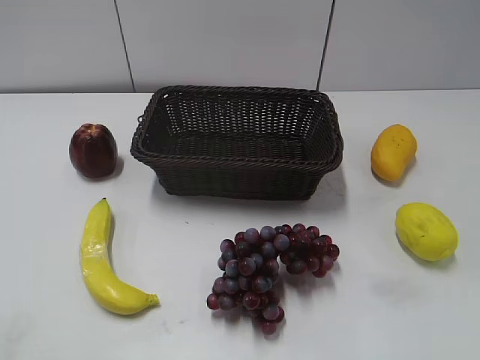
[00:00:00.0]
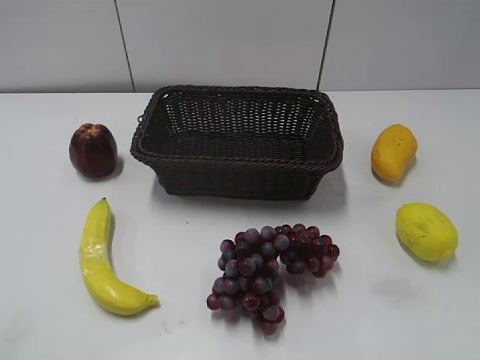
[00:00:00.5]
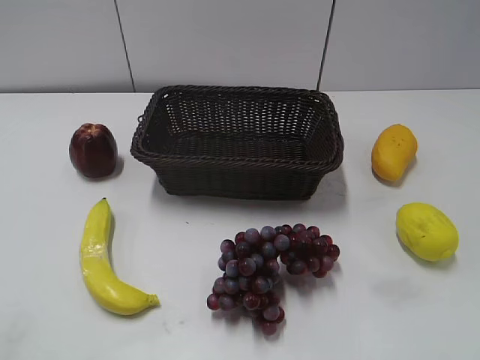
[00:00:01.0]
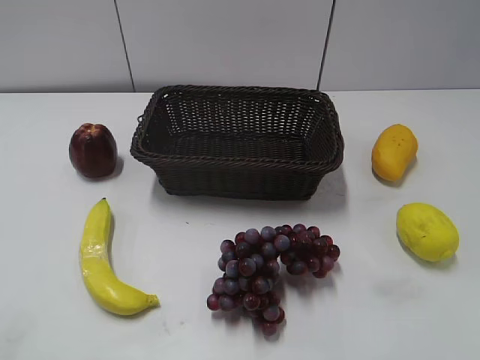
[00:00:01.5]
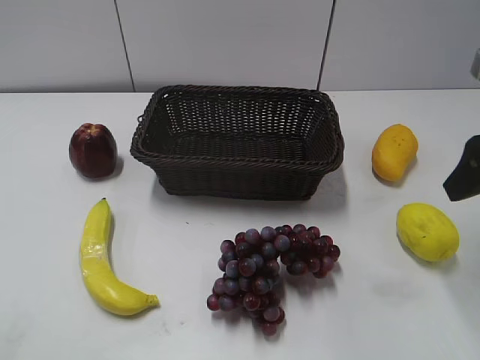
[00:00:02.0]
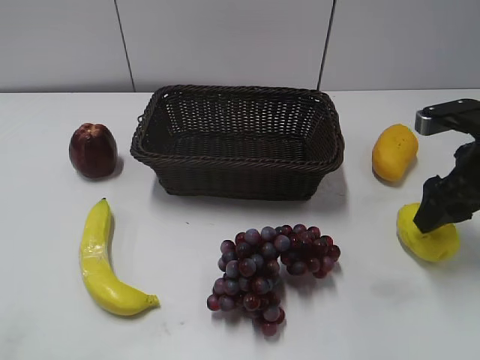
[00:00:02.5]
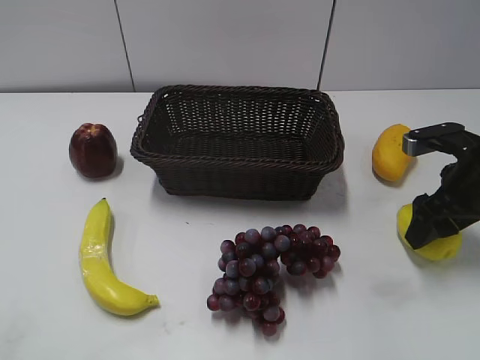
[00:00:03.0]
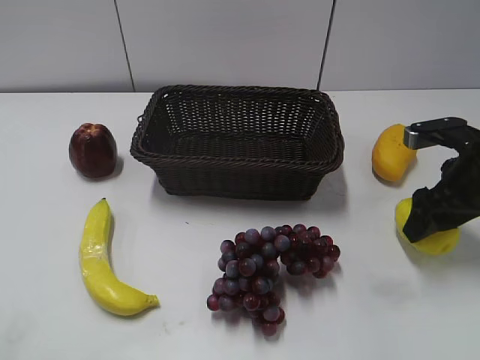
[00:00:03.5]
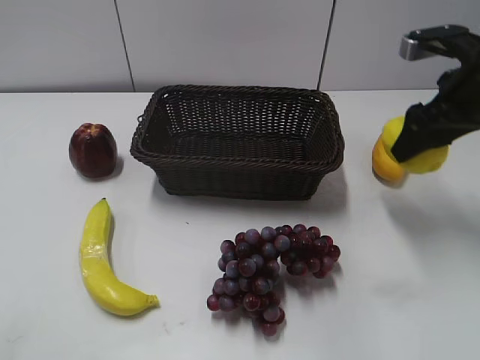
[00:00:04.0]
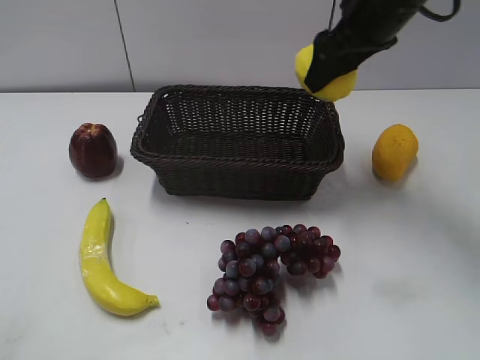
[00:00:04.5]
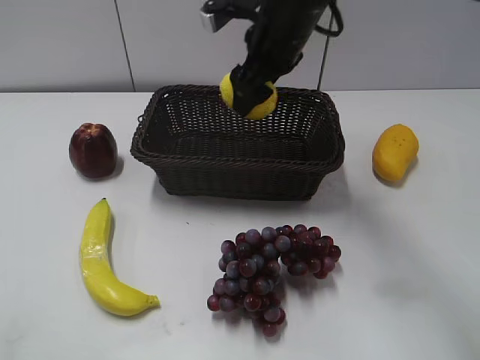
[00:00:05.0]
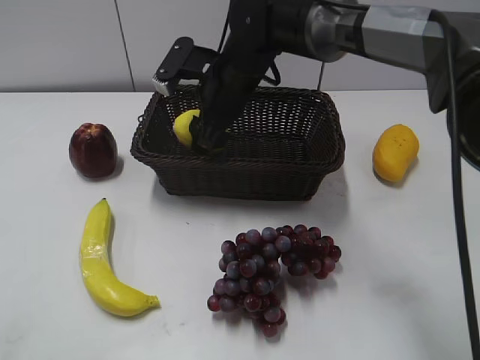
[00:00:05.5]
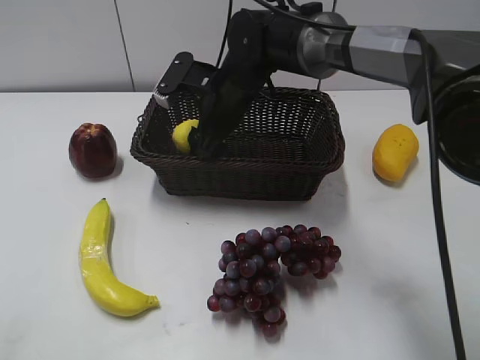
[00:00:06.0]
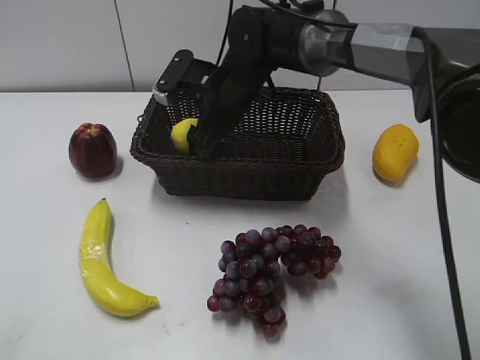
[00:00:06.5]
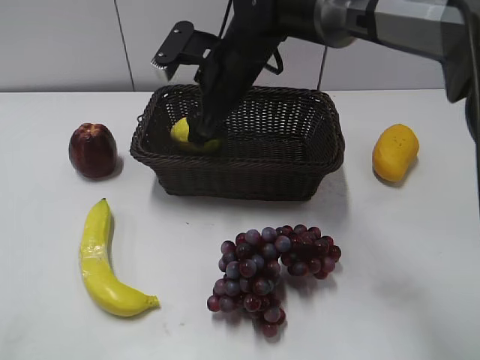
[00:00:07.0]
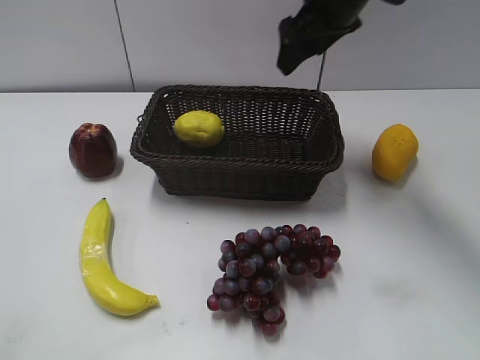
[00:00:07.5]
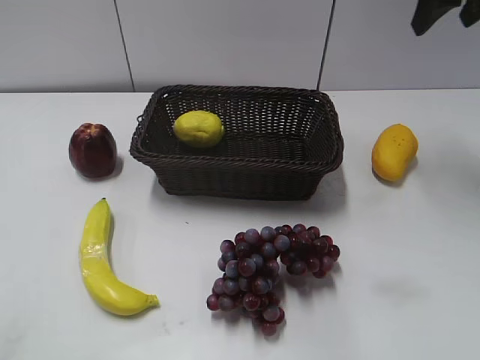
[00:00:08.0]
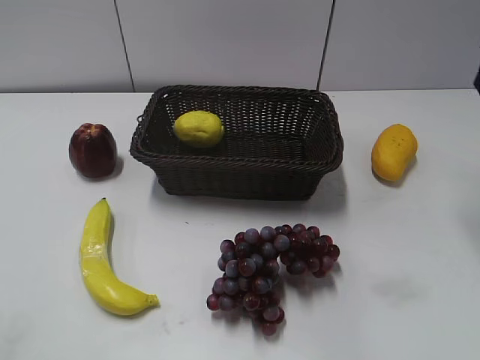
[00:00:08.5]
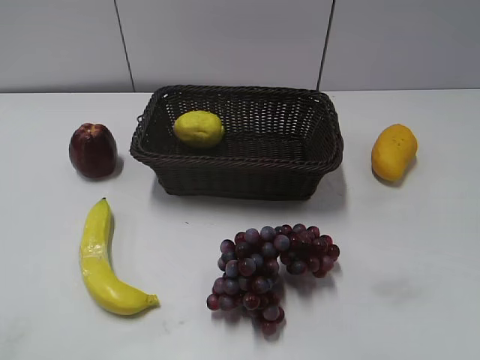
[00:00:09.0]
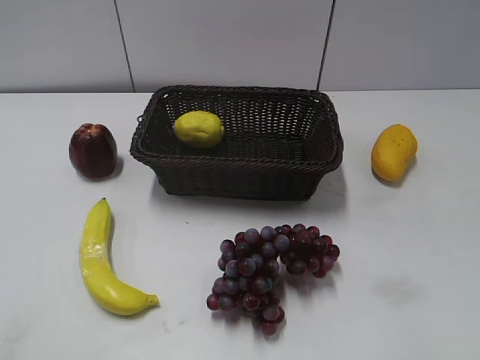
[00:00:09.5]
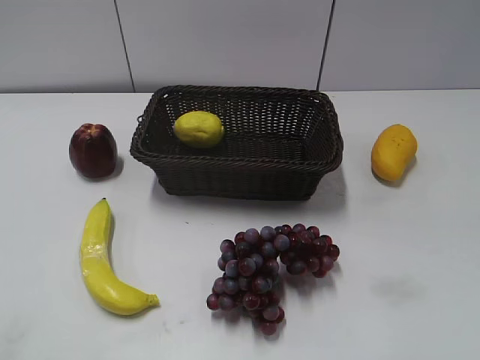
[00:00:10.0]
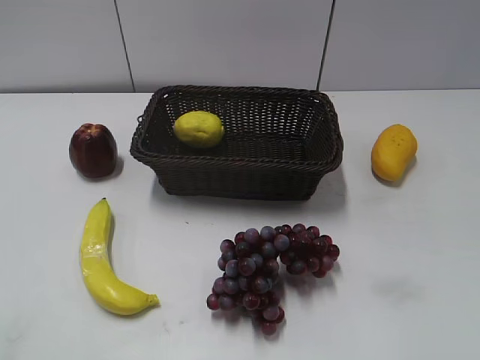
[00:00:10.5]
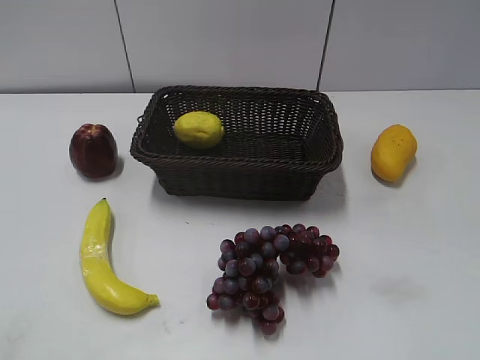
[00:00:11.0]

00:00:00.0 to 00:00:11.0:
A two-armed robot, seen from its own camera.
Step, 00:00:02.0 to 00:00:03.0: Grasp the lemon with right gripper.
Step, 00:00:03.5 to 00:00:06.5: Place the lemon in the basket with right gripper.
00:00:02.0 to 00:00:03.5: The right gripper is displaced downward by roughly 10 cm, and closes up.
00:00:03.5 to 00:00:05.5: The right gripper shifts some 30 cm to the left and forward.
00:00:05.5 to 00:00:07.5: The right gripper moves to the right and upward, some 15 cm, and opens up.
00:00:07.5 to 00:00:09.0: The right gripper is displaced backward and to the right by approximately 30 cm.

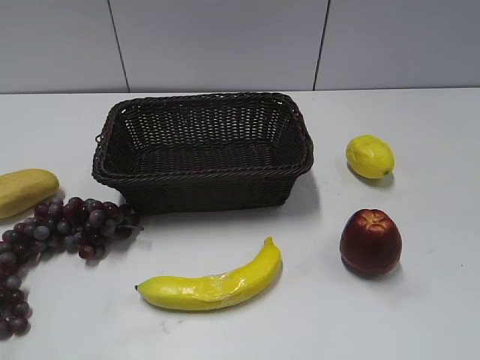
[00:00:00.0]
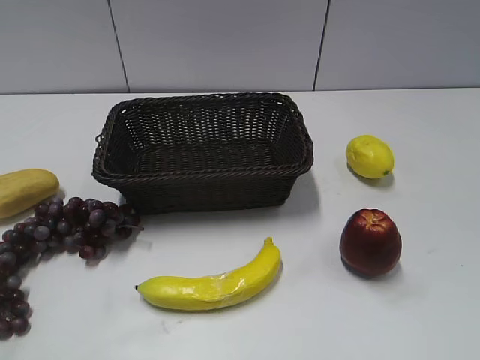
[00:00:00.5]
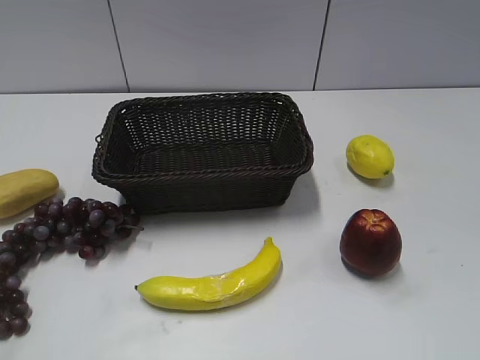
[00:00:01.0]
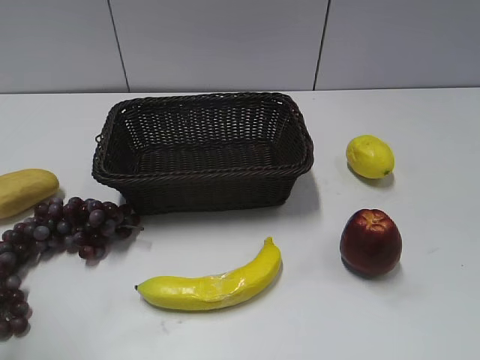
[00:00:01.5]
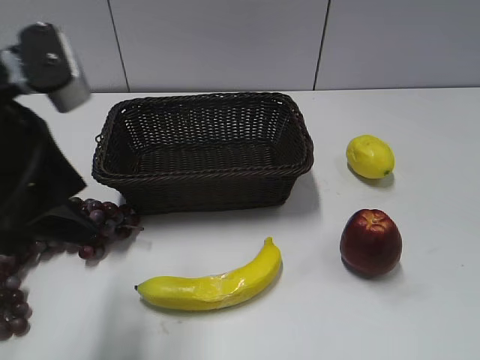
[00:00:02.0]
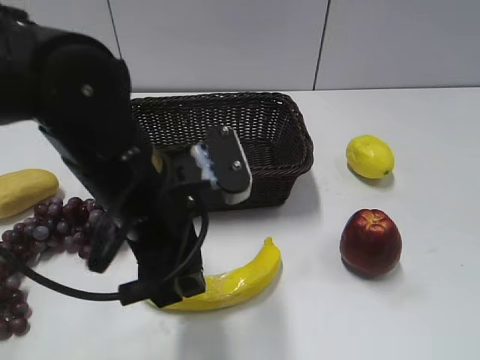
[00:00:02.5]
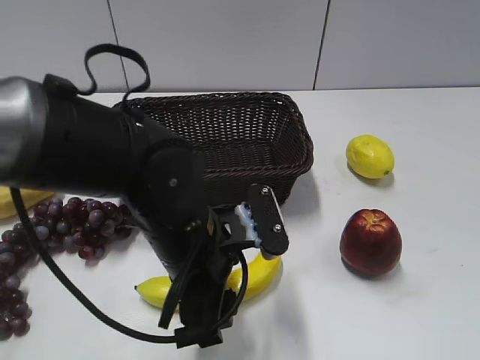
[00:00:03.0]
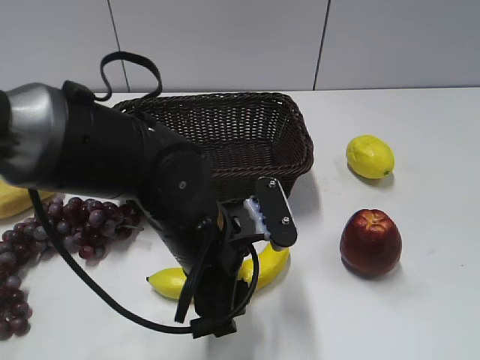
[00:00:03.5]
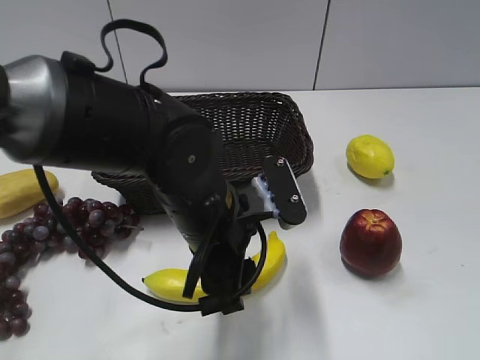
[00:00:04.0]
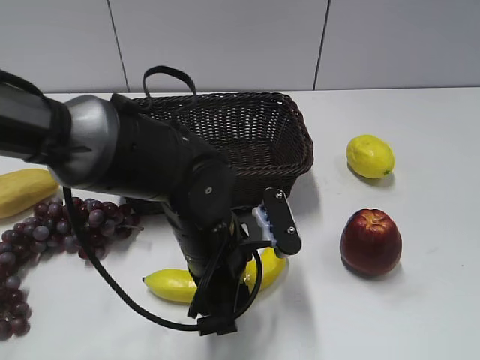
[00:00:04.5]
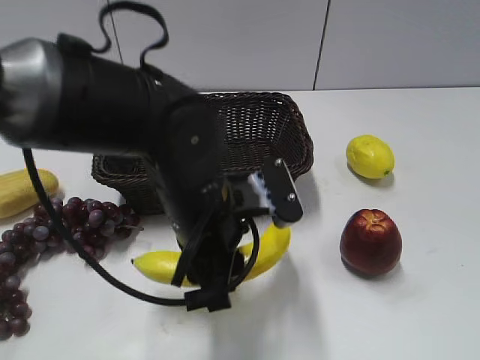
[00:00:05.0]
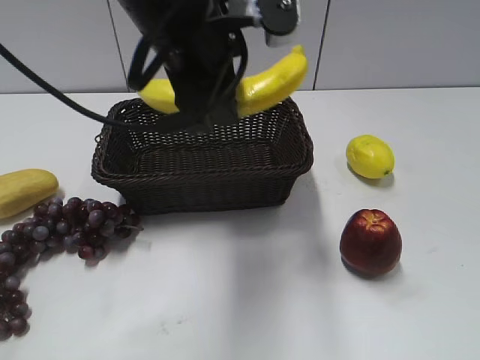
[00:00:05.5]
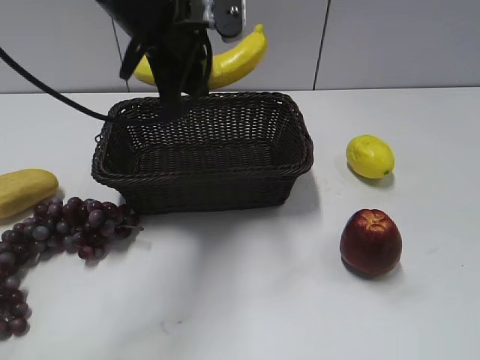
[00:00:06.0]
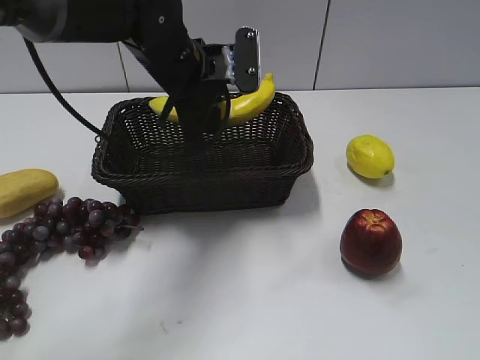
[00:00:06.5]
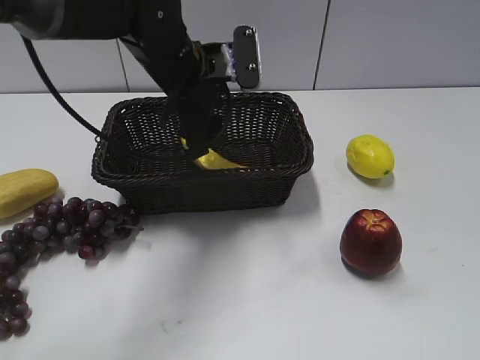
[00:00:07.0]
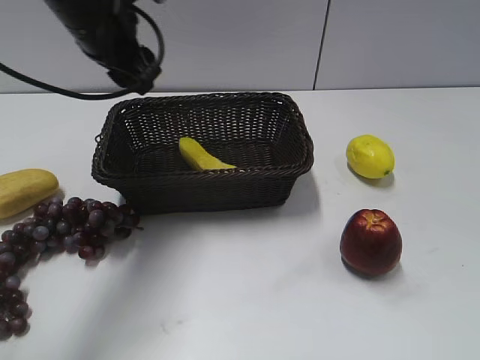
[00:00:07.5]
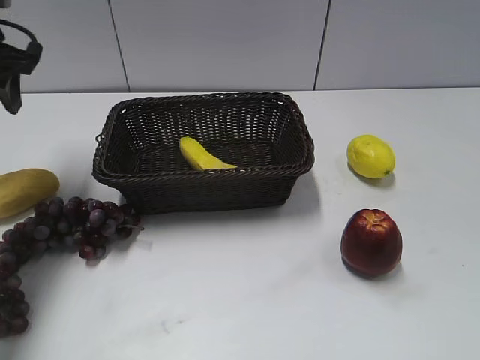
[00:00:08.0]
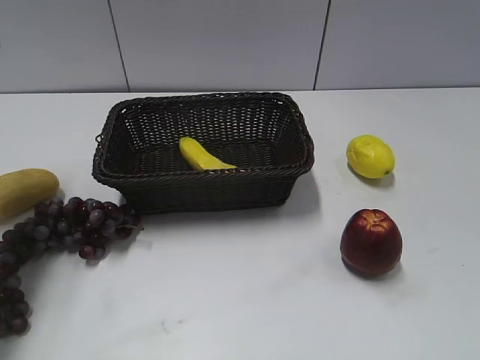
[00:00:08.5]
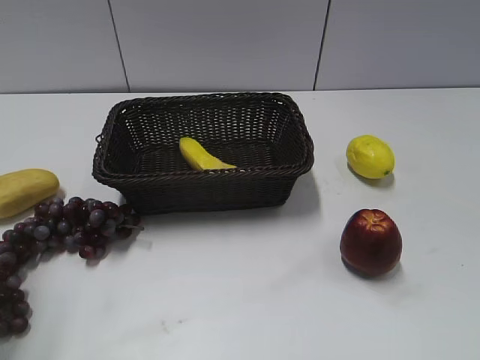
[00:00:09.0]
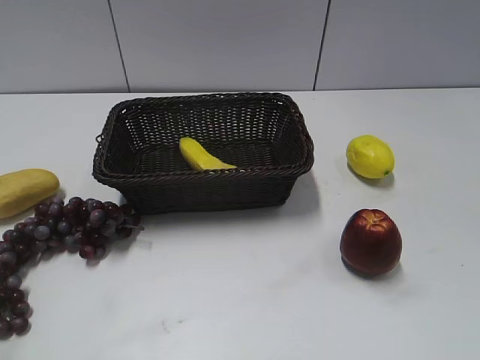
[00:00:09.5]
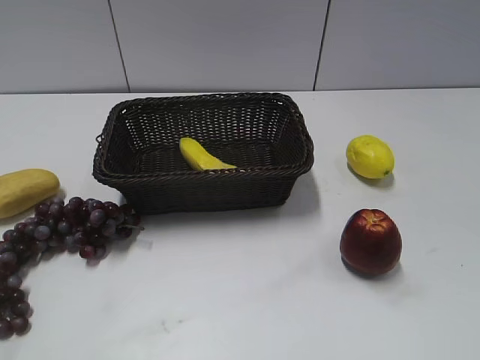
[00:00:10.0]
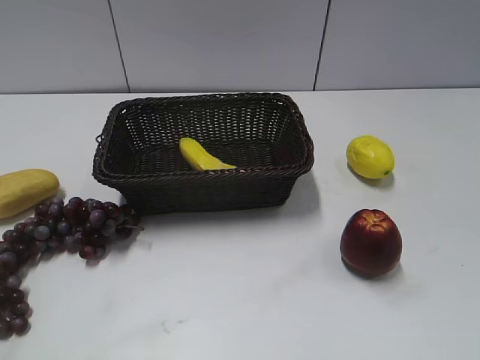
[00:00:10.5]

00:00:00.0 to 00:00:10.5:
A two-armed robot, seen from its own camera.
Step, 00:00:02.0 to 00:00:04.5: Grasp the banana with left gripper.
Step, 00:00:05.0 to 00:00:06.5: Place the banana in the basket with left gripper.
00:00:02.0 to 00:00:04.0: The left gripper goes roughly 20 cm to the right and downward.
00:00:04.0 to 00:00:06.5: The left gripper moves up and down over about 20 cm, changing direction 2 times, and closes up.
00:00:06.5 to 00:00:08.5: The left gripper goes some 25 cm to the left, and opens its fingers.
00:00:08.5 to 00:00:10.5: The left gripper heads backward, covering about 35 cm.
